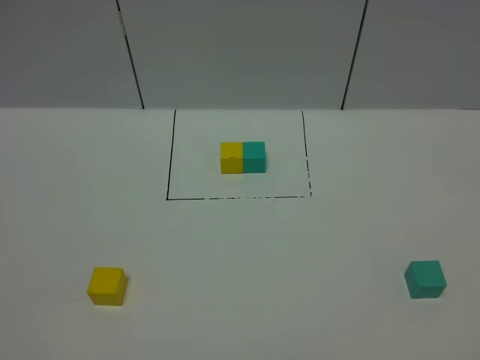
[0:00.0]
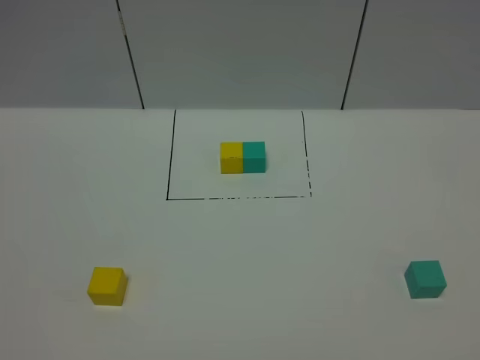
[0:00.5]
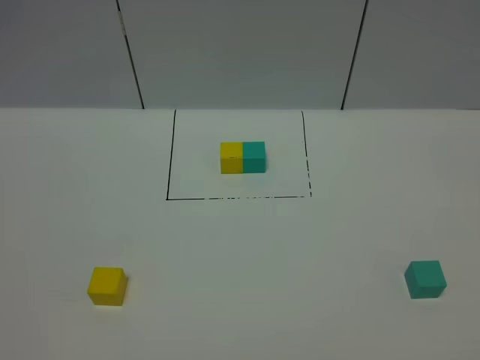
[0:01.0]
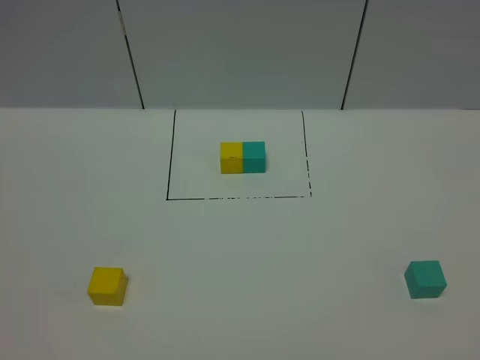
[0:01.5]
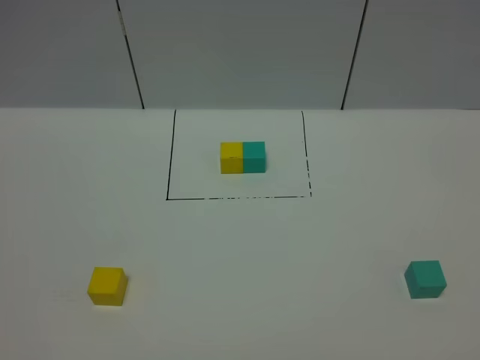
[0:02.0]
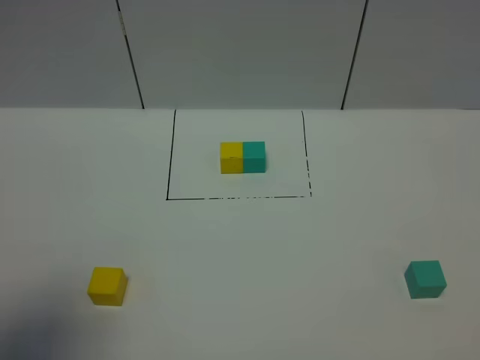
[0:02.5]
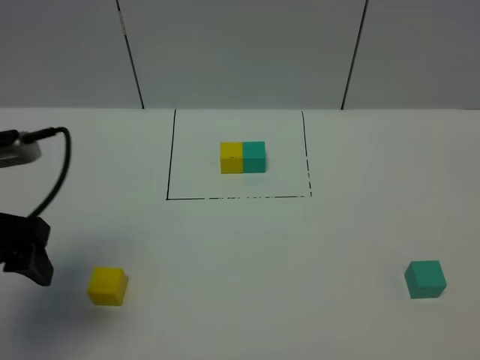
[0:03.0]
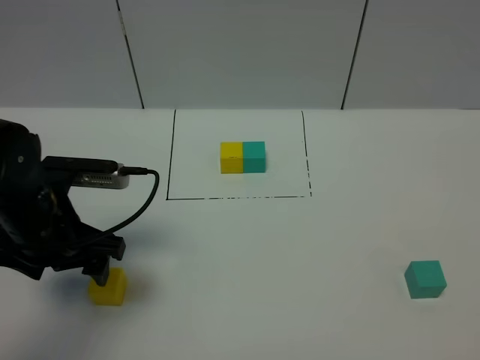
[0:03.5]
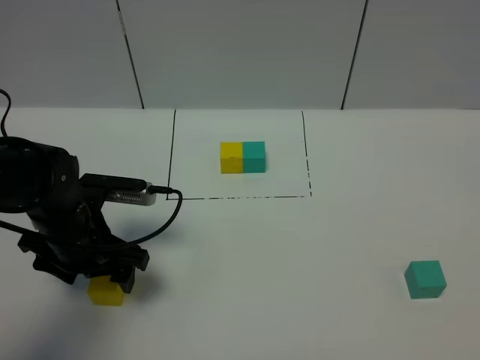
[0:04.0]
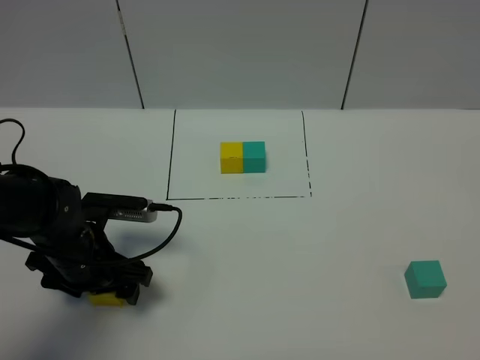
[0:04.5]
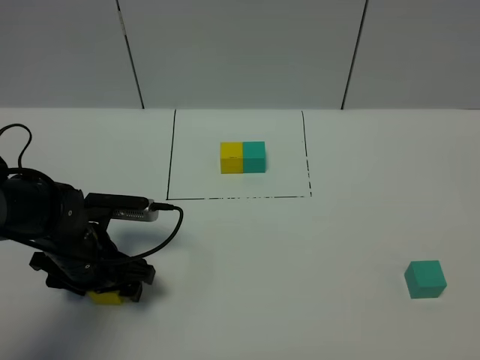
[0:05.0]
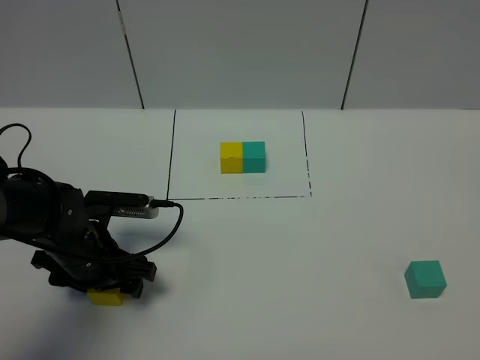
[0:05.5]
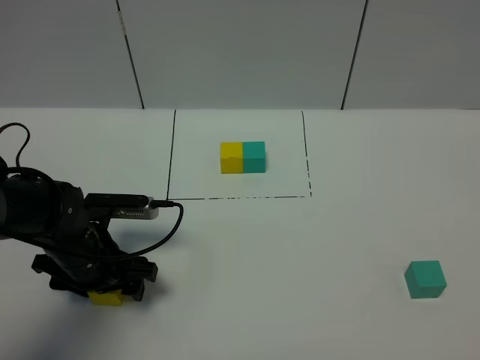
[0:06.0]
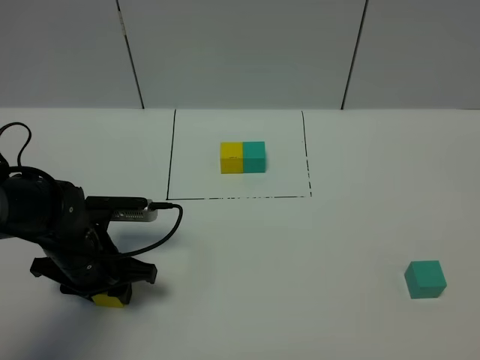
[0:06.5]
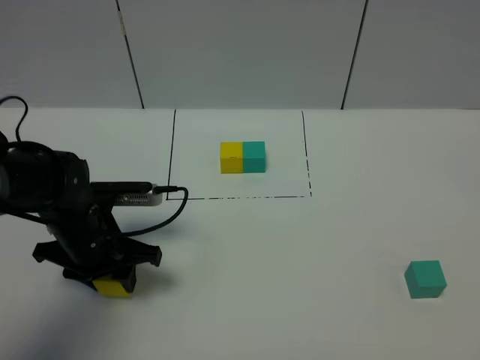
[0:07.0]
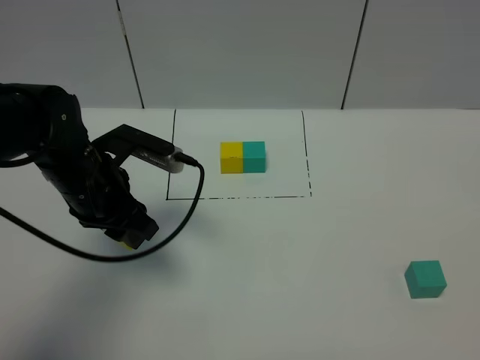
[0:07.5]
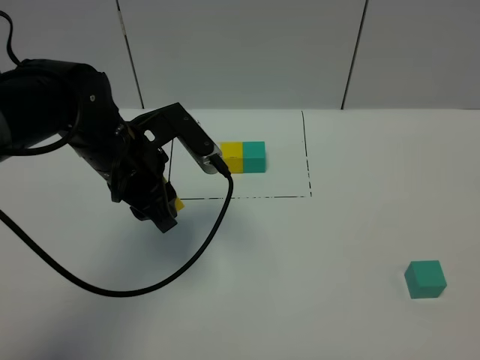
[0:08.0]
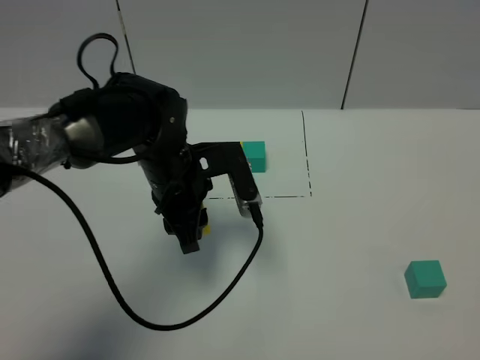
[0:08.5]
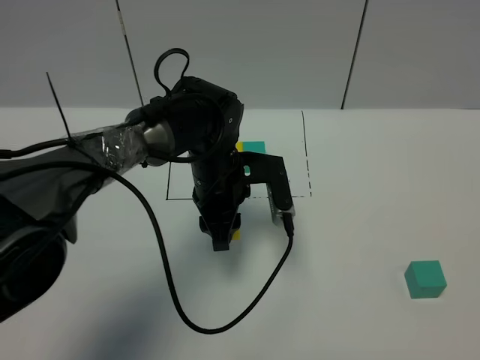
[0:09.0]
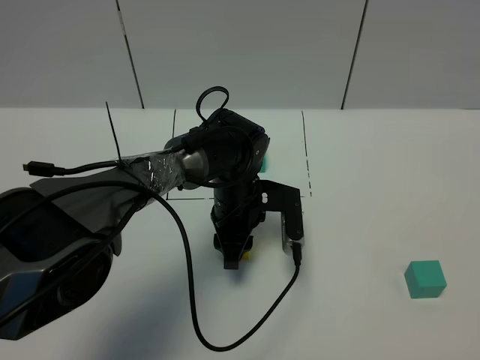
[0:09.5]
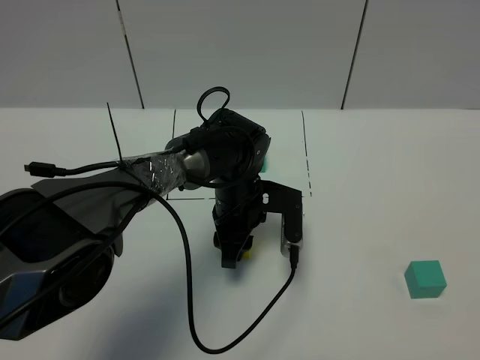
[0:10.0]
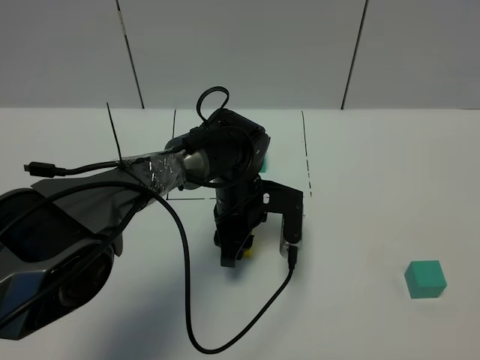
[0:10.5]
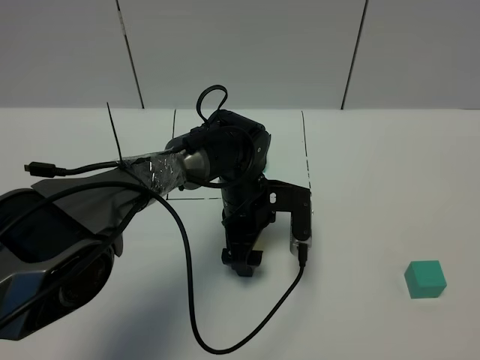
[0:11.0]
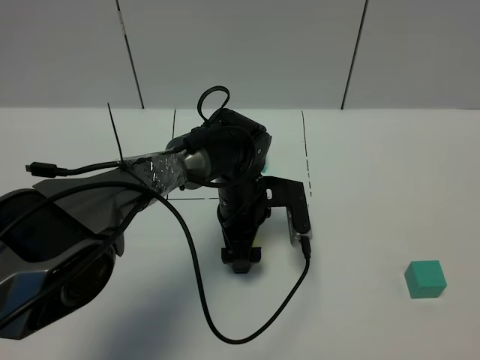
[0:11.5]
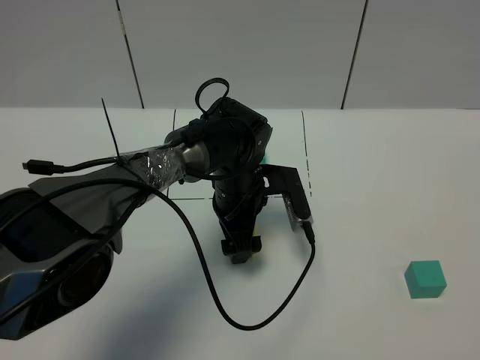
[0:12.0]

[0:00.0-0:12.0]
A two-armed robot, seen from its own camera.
Task of the whole recording: According to the building block template in front, assemble the scattered blocks together.
2.0 to 4.0 s: The left gripper goes roughly 35 cm forward and downward.
4.0 to 6.0 s: The grippers make only small movements.
6.0 to 8.0 s: The left gripper travels upward, to the right and forward by some 15 cm, and closes.
8.0 to 10.0 s: The left gripper moves downward and to the right, about 20 cm.
10.0 to 12.0 s: The left gripper opens its fingers.

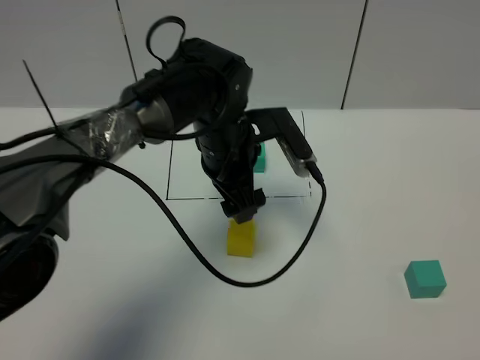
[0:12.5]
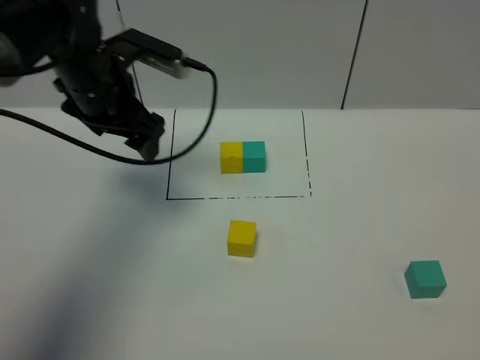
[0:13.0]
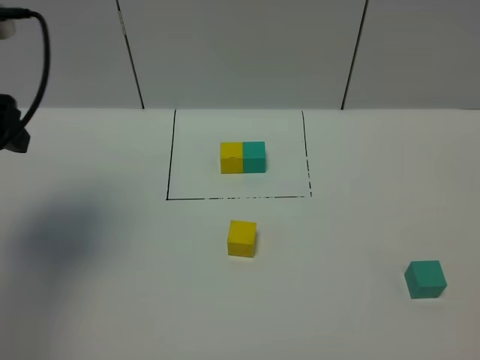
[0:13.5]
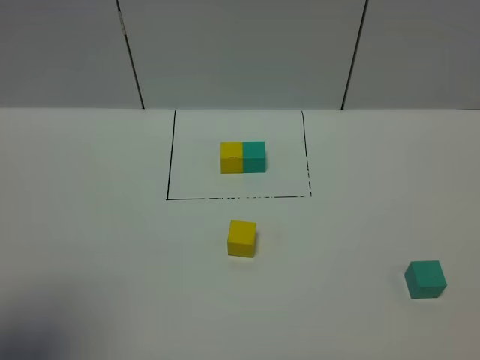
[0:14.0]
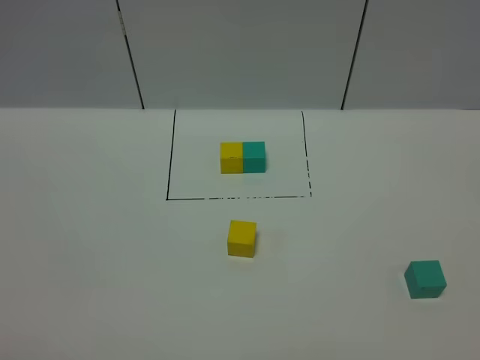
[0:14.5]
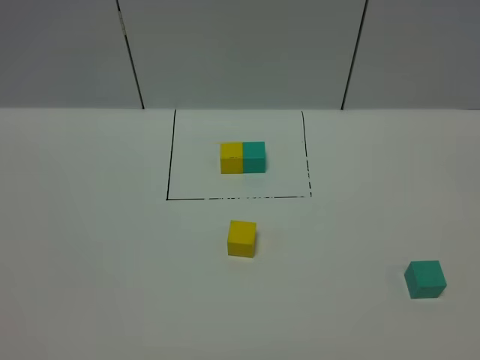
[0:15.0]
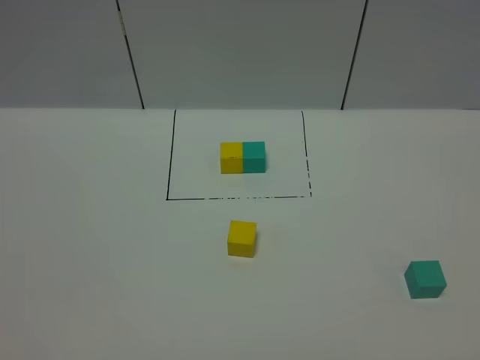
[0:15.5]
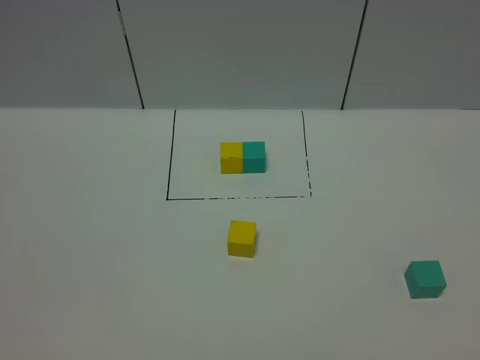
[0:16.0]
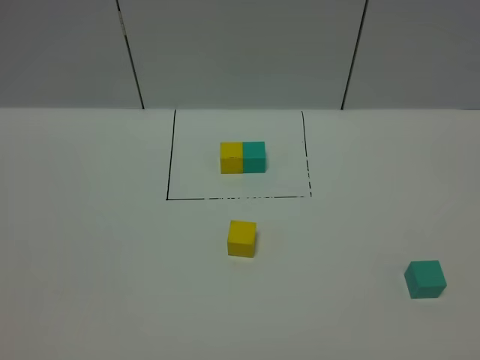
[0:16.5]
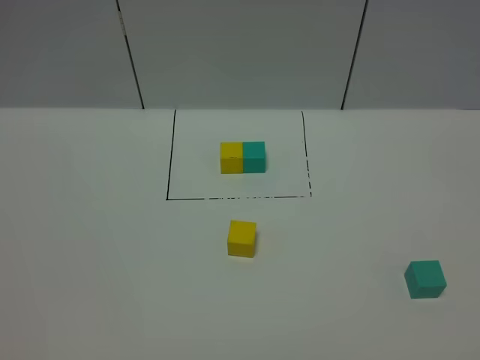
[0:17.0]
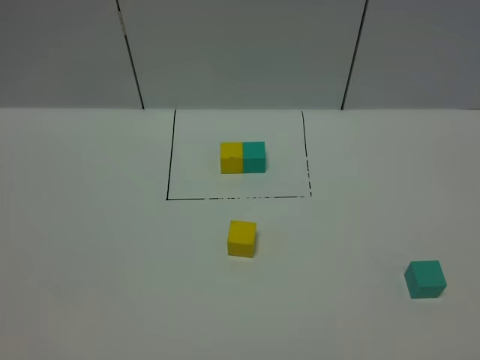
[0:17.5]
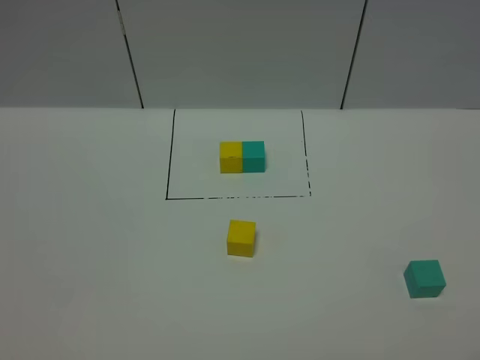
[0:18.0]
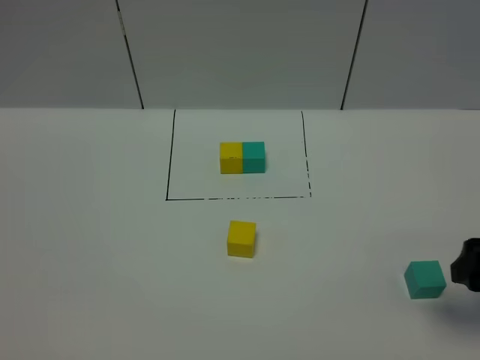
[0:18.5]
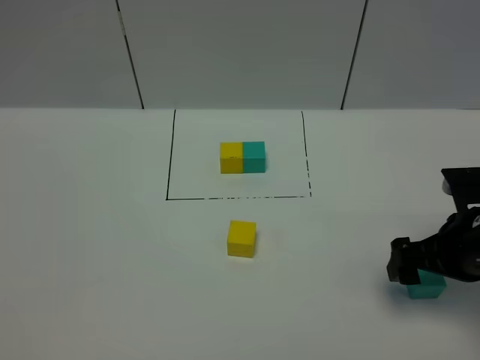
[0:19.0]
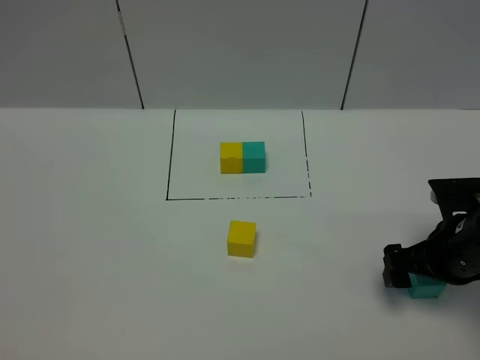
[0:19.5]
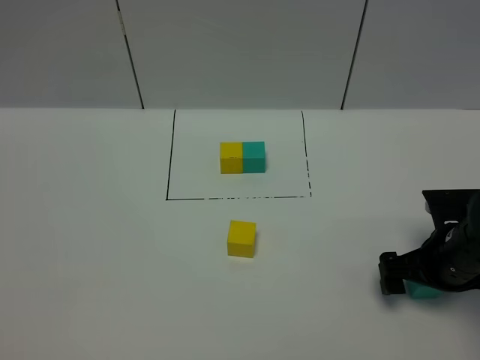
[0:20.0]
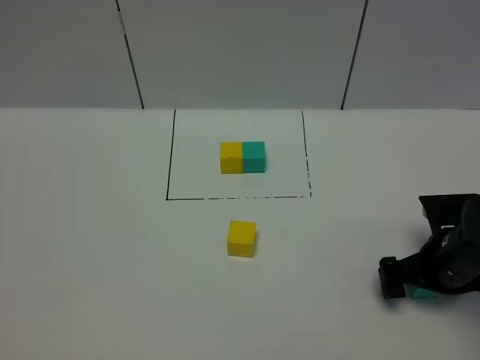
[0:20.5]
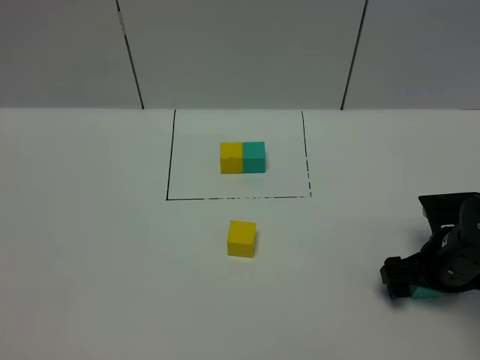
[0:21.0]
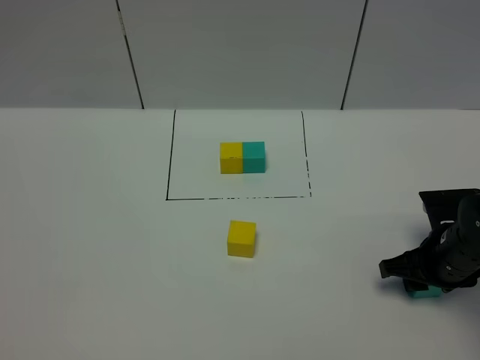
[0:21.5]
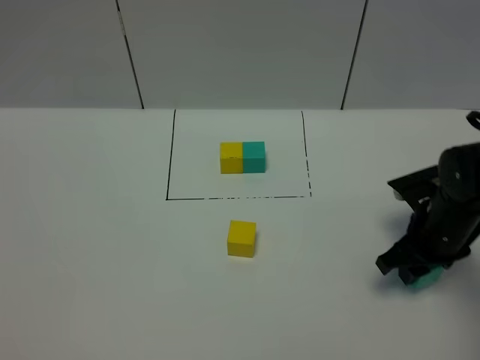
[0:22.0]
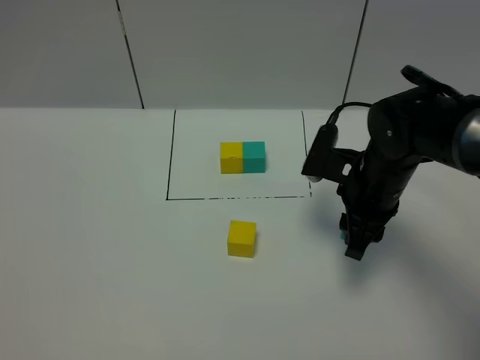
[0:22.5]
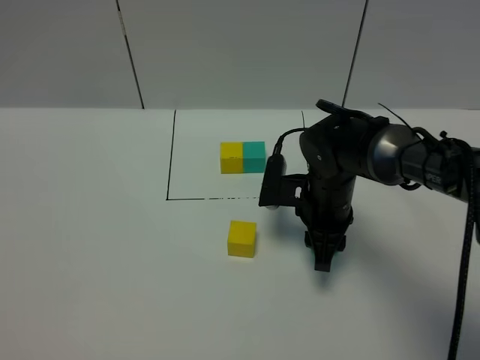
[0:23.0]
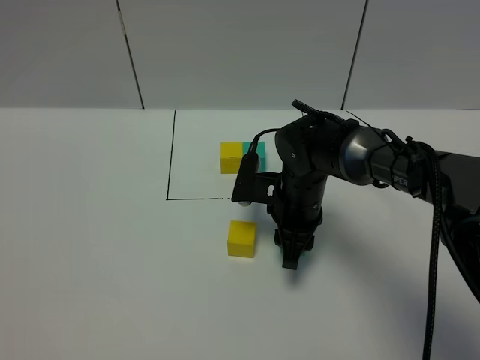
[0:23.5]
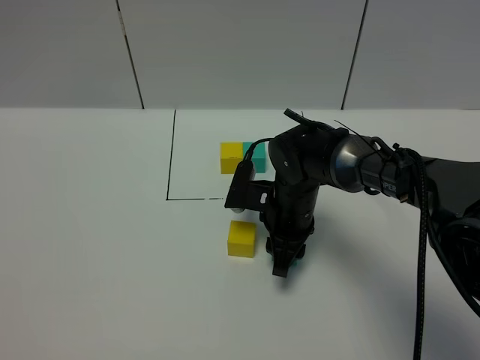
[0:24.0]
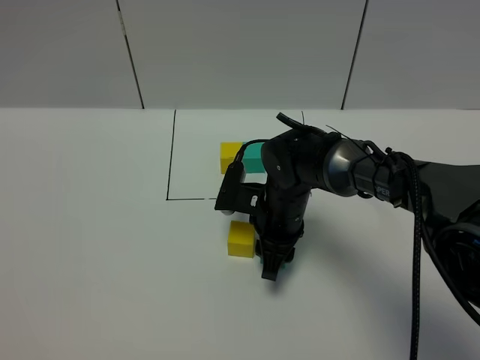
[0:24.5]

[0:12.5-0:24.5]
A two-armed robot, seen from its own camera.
Task of the whole recording: According to the building block template in front, assemble the scattered blocks together.
12.5 to 14.5 s: The left gripper moves backward and to the left, approximately 50 cm.
16.5 to 18.5 s: The right gripper travels forward by approximately 20 cm.
18.5 to 20.5 s: The right gripper is displaced downward and forward by some 15 cm.
20.5 to 22.5 s: The right gripper shifts about 15 cm to the left, upward and forward, and closes its fingers.
22.5 to 24.5 s: The right gripper heads to the left and downward, covering roughly 15 cm.

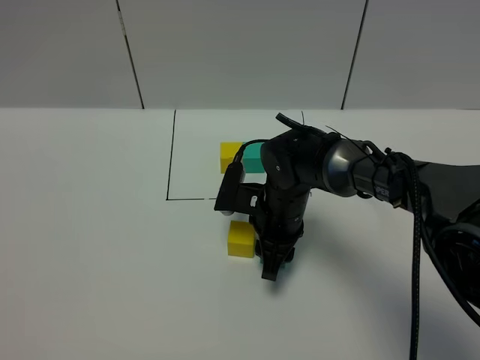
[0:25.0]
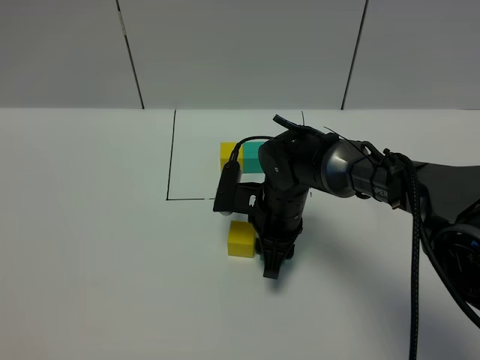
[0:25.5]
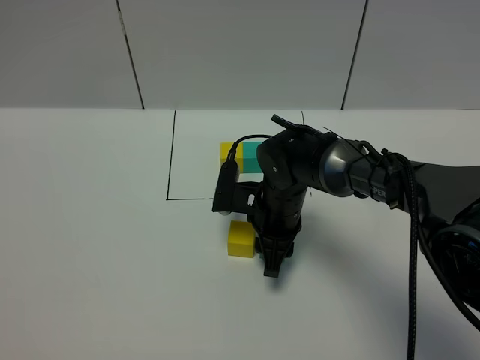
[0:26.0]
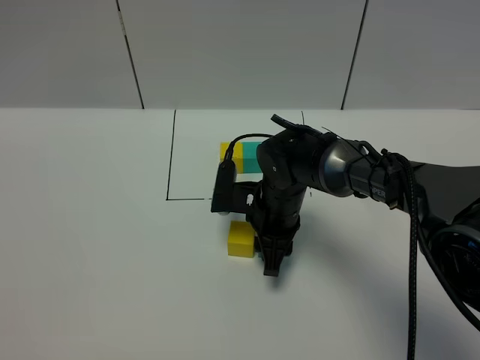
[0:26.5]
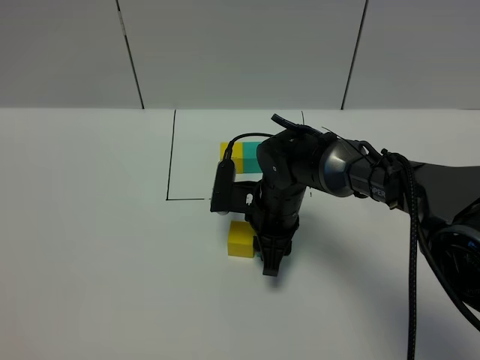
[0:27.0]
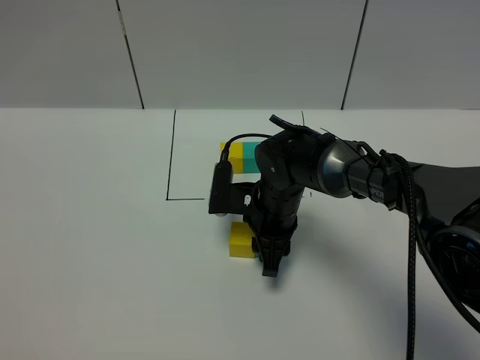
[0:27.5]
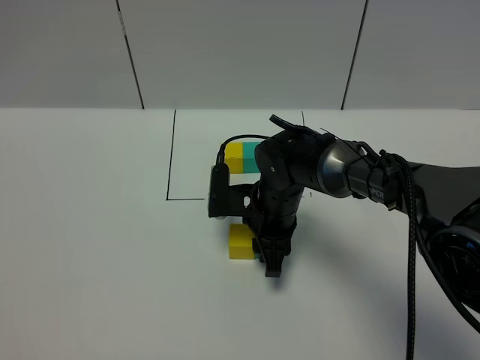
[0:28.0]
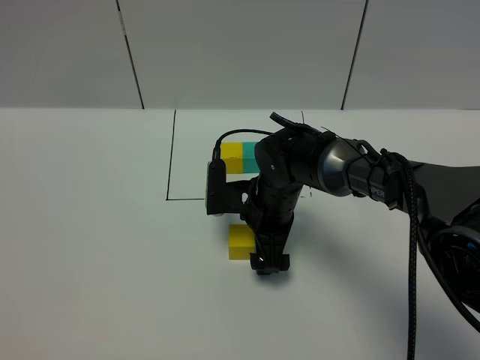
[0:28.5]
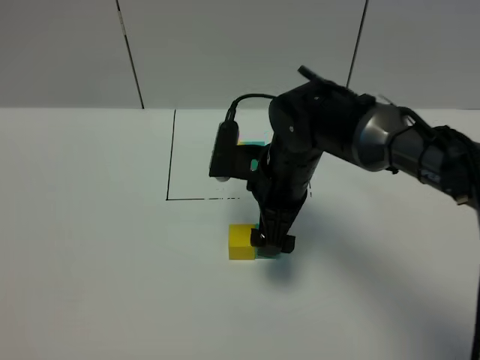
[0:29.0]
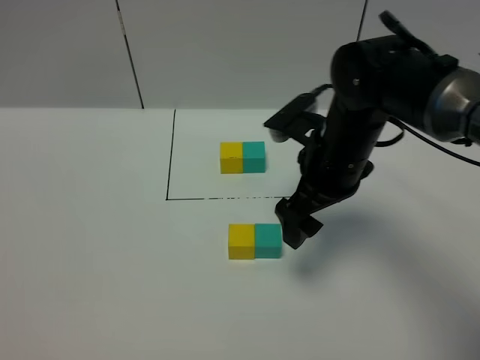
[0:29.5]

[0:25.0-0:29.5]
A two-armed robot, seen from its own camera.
Task of the whole recording: According to the building block template in front, assemble the scattered blocks together.
Step, 25.0 to 29.0 s: Put the green cube on the right of the yellow cube.
25.0 to 27.0 s: The grippers stay close to where they were, moving slightly.
27.0 to 29.5 s: The right gripper shifts approximately 15 cm upward and to the right, and opens.
